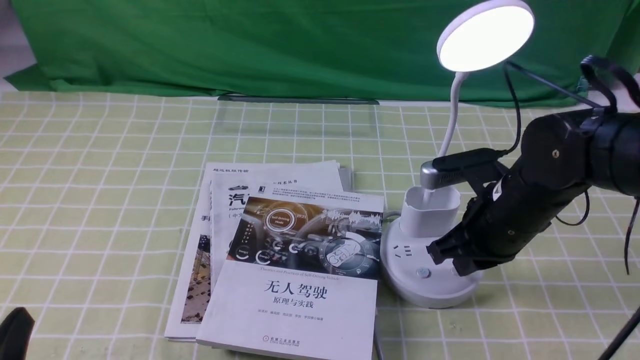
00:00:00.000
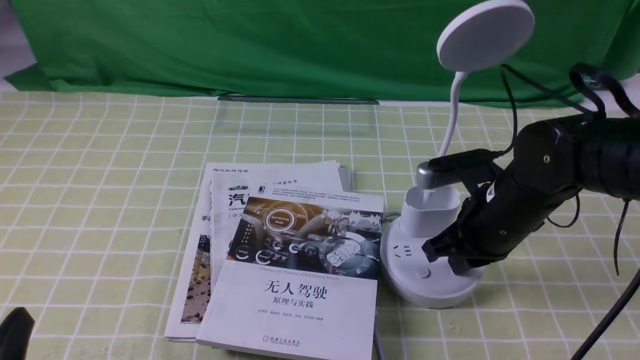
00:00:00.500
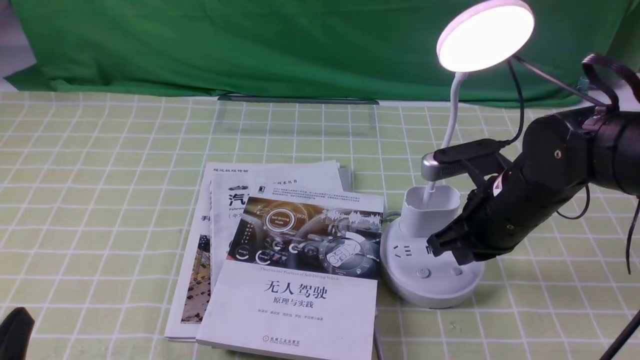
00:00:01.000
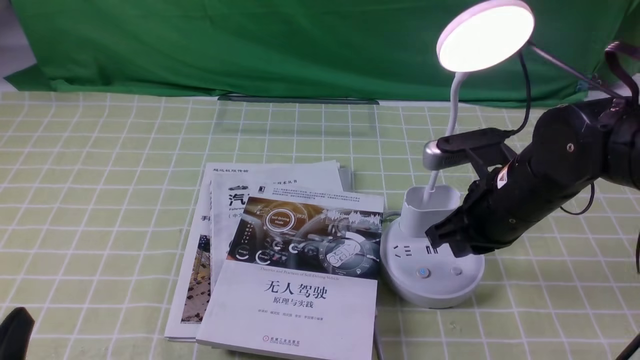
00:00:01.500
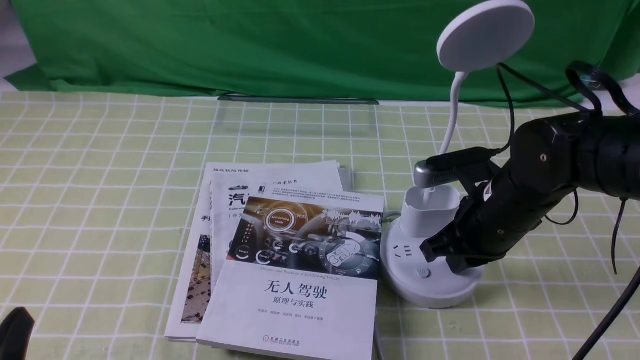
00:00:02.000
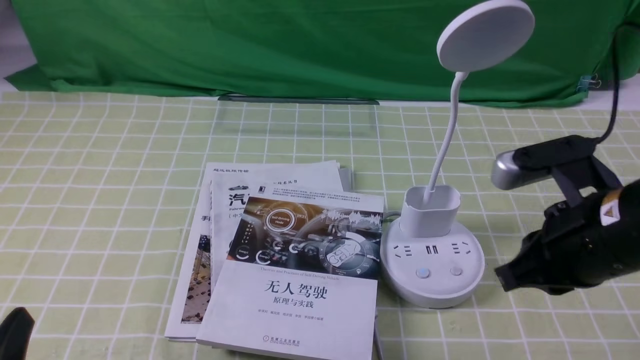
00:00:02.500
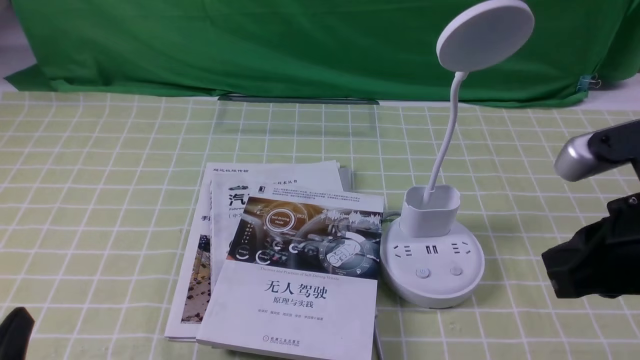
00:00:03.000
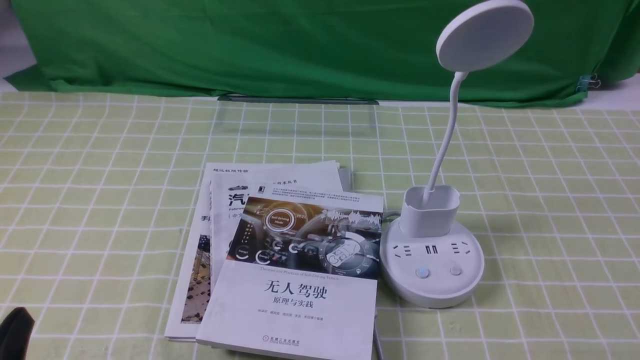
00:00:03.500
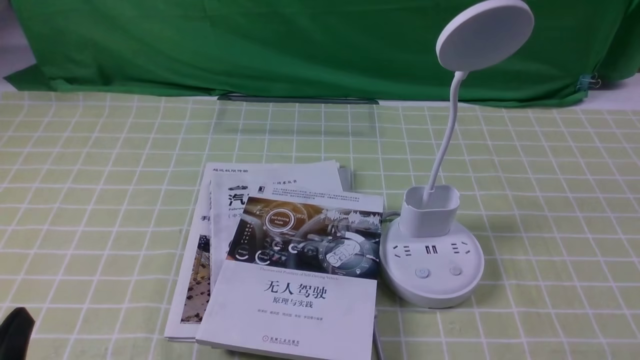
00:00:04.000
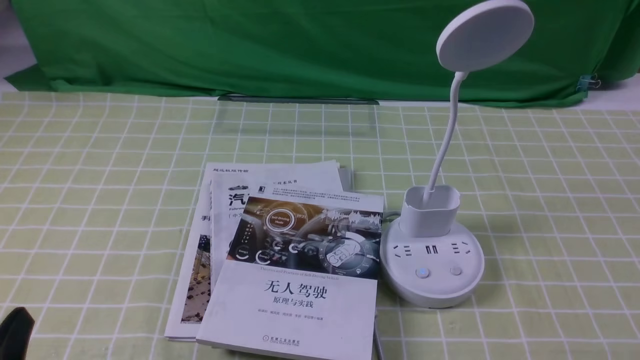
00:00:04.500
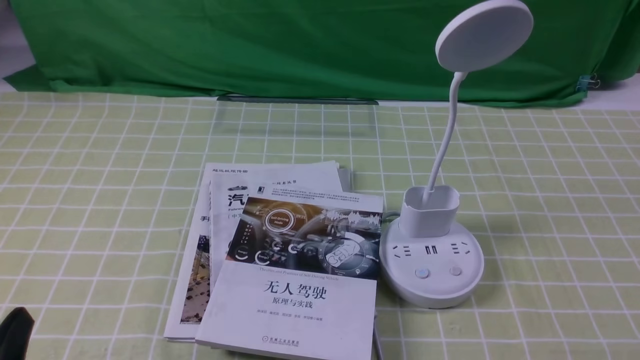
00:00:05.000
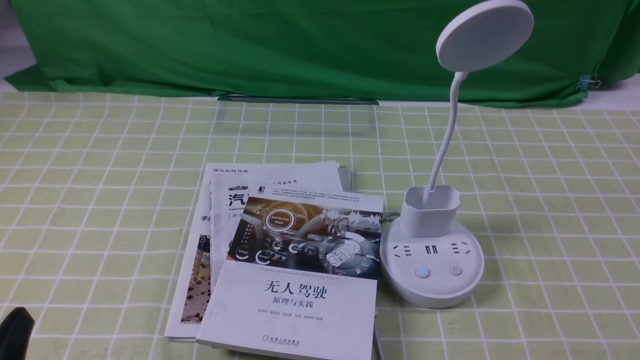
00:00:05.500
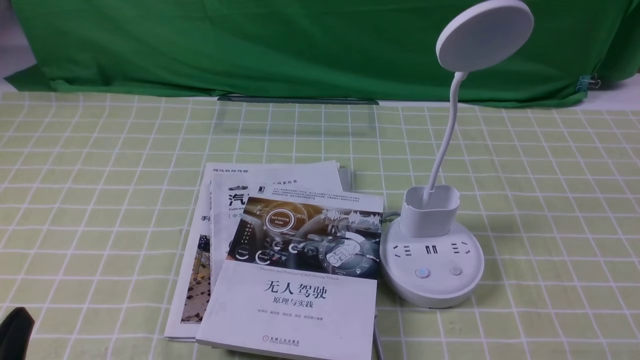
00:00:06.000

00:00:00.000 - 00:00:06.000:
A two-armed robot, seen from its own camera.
Task of the whole recording: turn off the desk lamp on the green coffee tablecloth by hand.
Step, 00:00:00.000 - 00:00:02.000: use the right arm to press the button switch on the lamp holder.
00:00:00.000 - 00:00:02.000: The grippers make only small movements.
00:00:02.000 - 00:00:04.000: The right gripper travels backward and to the right by approximately 30 cm.
